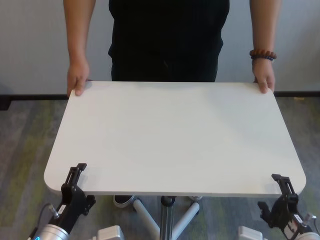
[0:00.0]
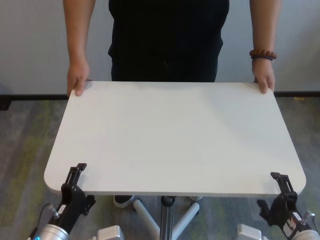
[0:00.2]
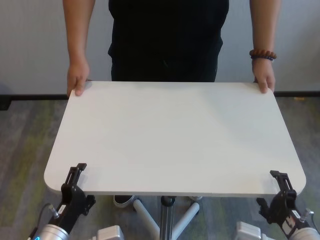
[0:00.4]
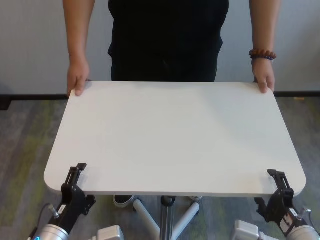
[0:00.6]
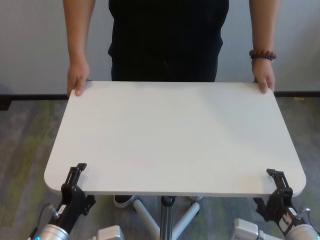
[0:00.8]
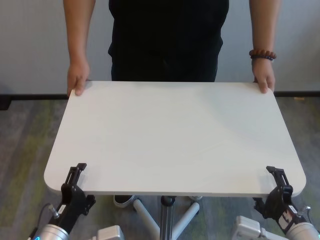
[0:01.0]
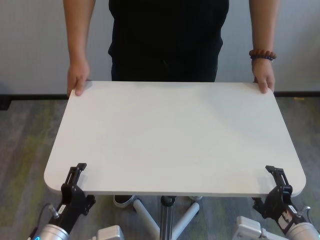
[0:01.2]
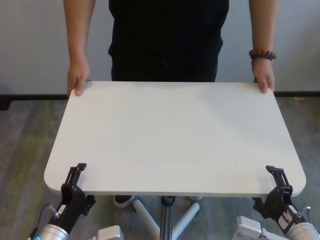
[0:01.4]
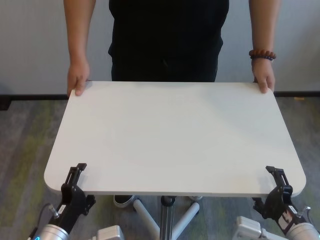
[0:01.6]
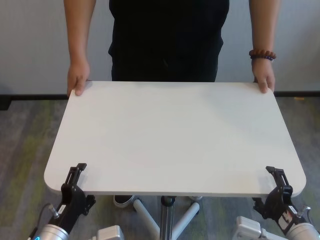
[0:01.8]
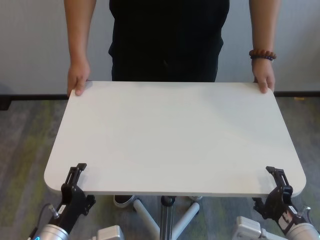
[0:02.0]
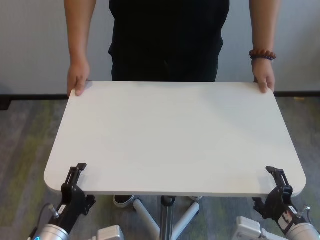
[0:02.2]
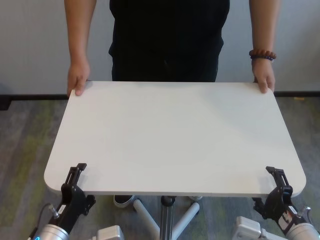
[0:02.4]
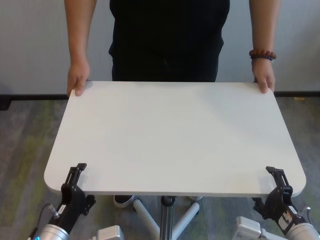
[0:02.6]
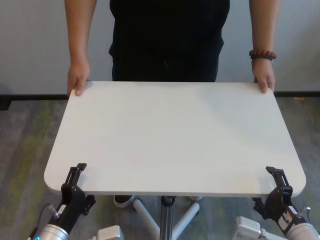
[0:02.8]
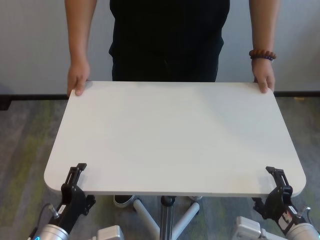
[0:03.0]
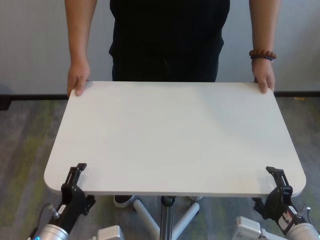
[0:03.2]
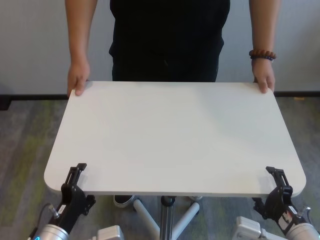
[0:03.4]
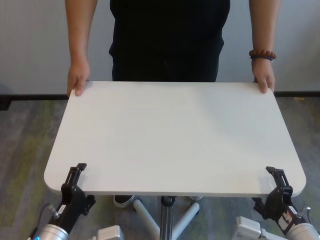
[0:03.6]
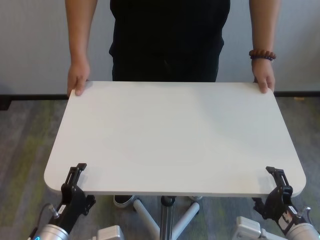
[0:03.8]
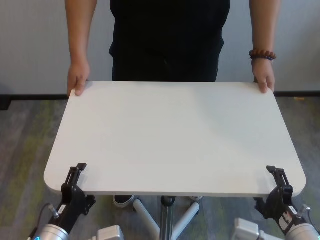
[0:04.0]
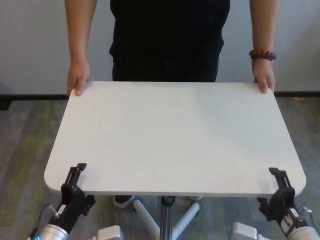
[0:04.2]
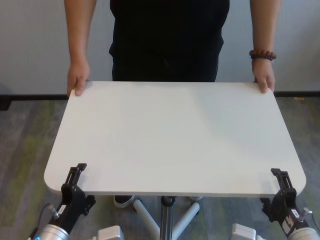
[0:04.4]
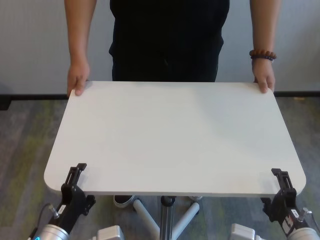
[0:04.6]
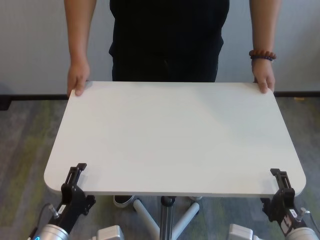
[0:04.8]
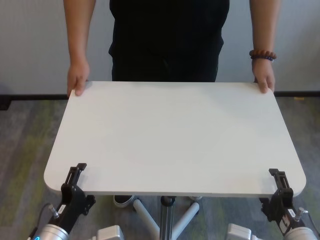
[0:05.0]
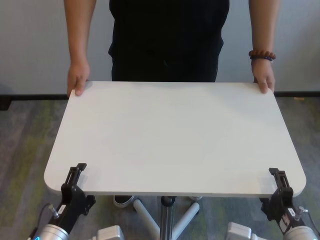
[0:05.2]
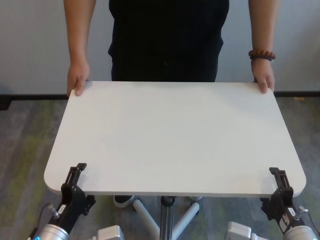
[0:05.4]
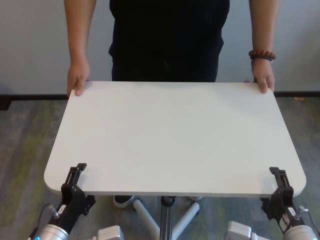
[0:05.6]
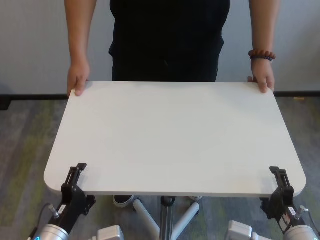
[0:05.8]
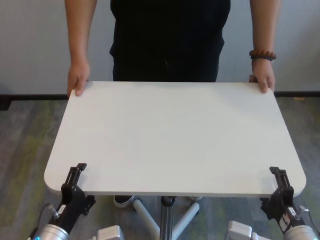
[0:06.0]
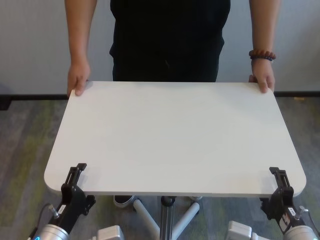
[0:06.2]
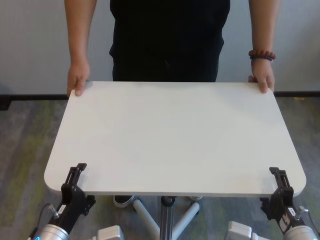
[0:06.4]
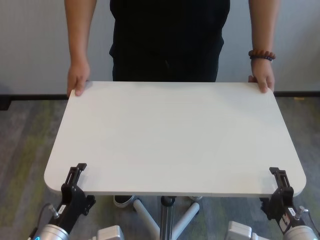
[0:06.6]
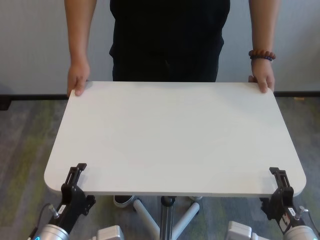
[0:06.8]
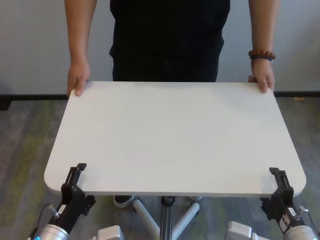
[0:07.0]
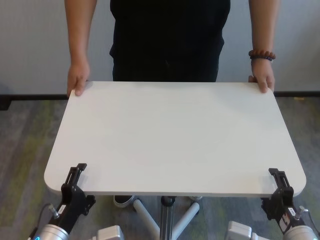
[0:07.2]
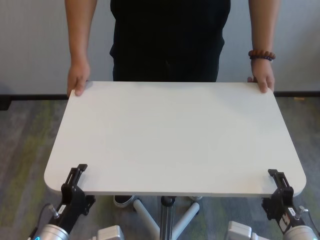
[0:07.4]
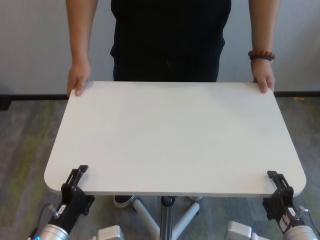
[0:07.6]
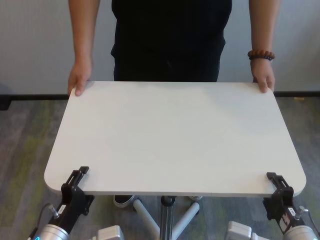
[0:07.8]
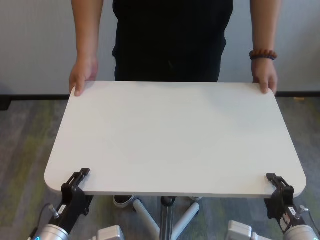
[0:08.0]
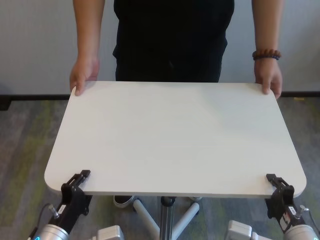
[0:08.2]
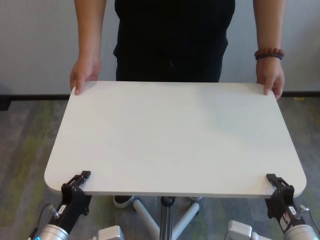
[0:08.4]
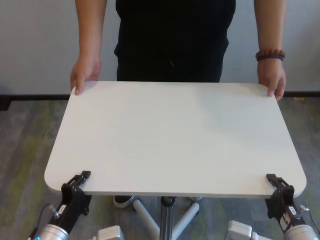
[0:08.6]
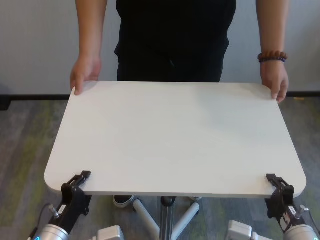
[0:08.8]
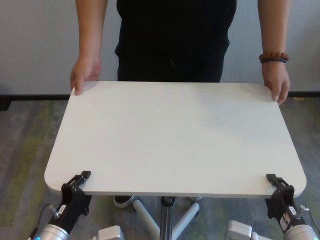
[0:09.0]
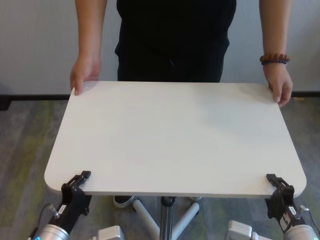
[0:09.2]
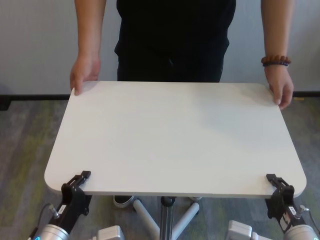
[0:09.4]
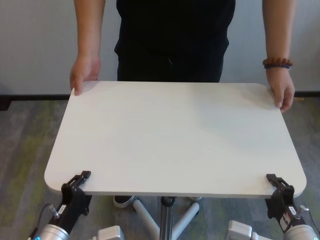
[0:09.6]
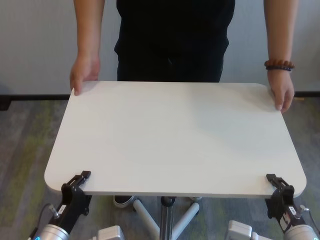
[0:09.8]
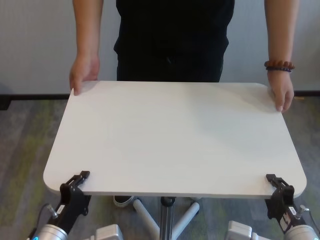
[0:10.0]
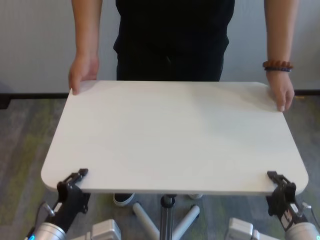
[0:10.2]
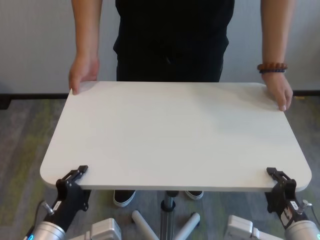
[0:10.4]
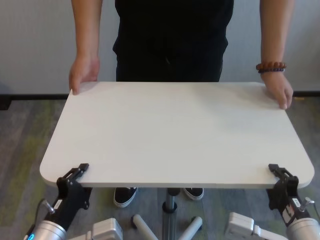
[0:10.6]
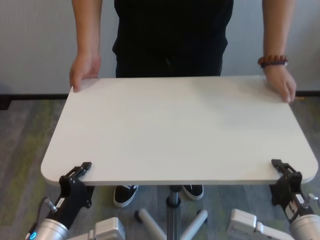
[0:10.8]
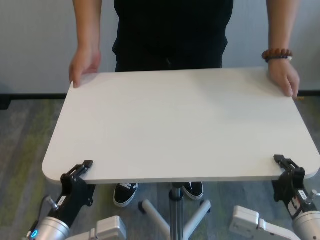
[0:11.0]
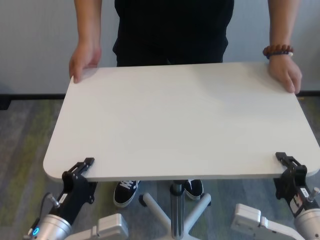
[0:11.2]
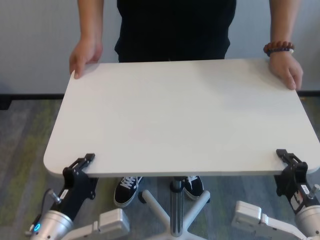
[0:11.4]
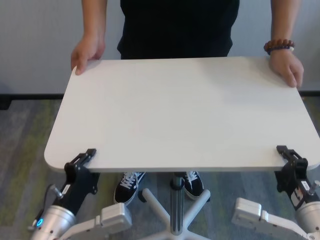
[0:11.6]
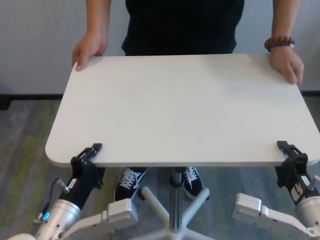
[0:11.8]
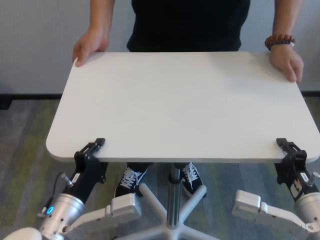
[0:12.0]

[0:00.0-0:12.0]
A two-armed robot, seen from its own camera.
Task of the whole recording: human machine collaborative table moving.
Step, 0:00.0 to 0:09.2: Grasp the table with both grippers.

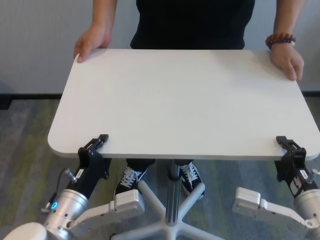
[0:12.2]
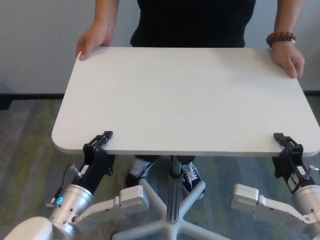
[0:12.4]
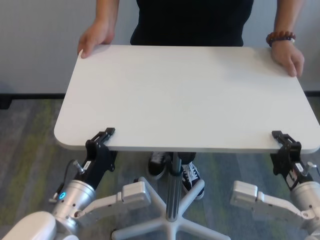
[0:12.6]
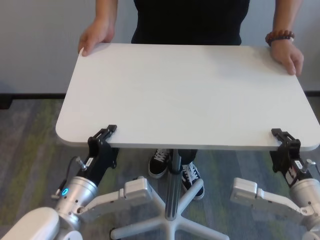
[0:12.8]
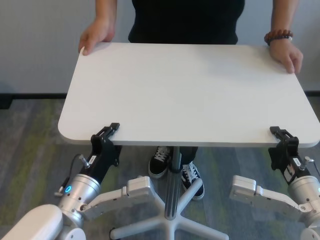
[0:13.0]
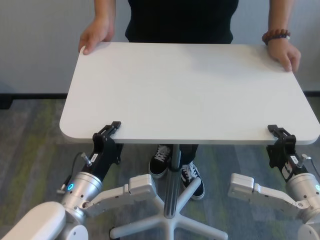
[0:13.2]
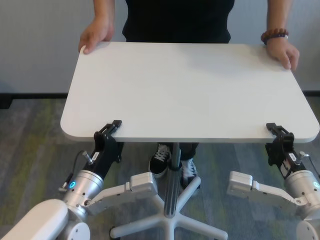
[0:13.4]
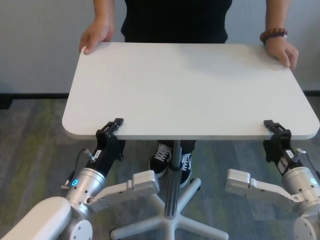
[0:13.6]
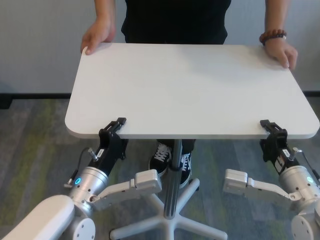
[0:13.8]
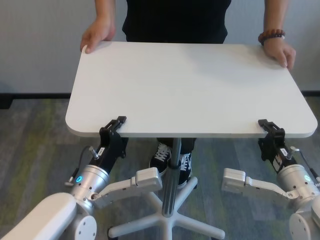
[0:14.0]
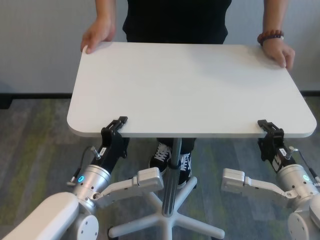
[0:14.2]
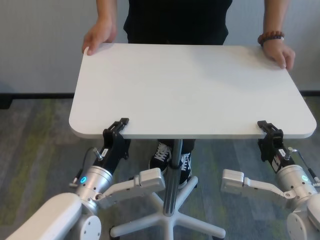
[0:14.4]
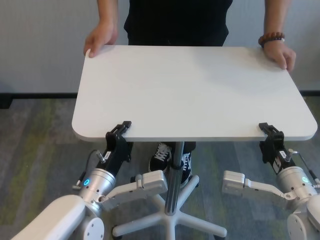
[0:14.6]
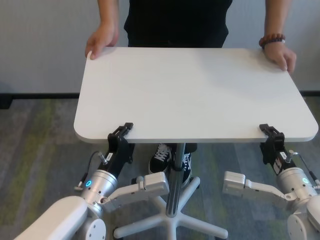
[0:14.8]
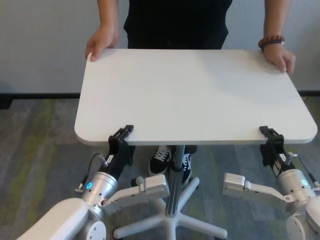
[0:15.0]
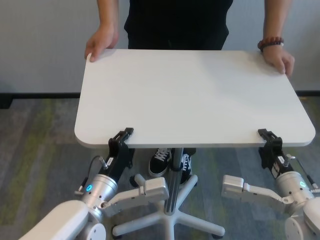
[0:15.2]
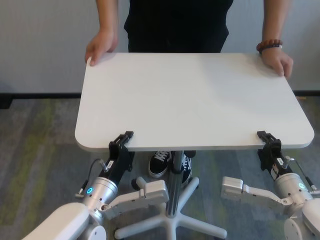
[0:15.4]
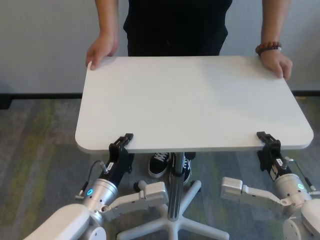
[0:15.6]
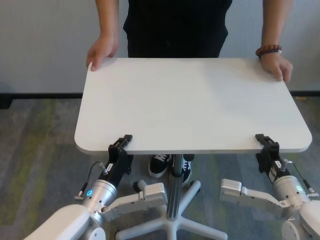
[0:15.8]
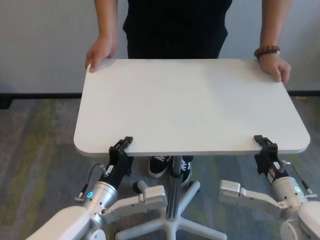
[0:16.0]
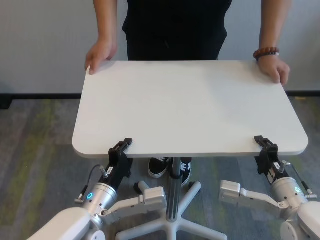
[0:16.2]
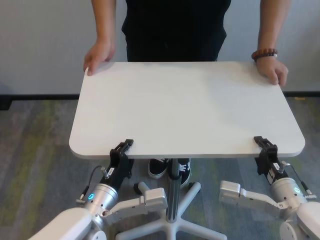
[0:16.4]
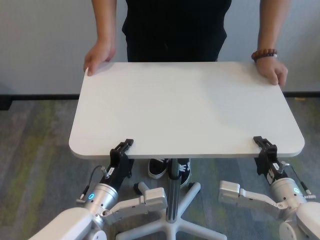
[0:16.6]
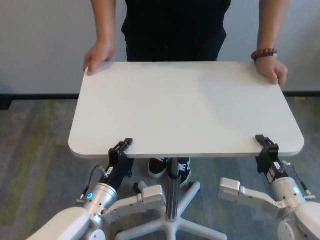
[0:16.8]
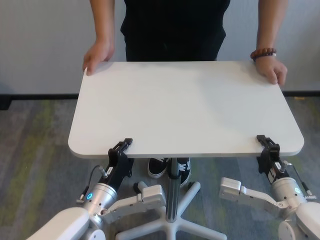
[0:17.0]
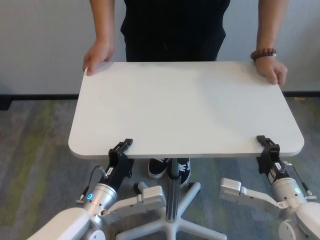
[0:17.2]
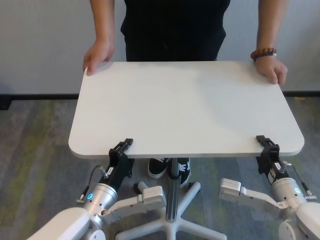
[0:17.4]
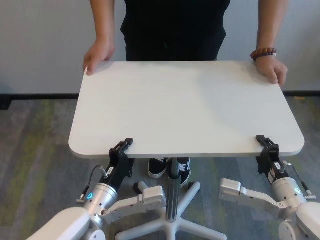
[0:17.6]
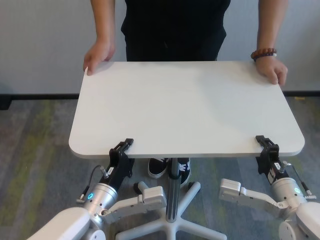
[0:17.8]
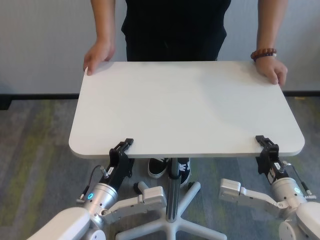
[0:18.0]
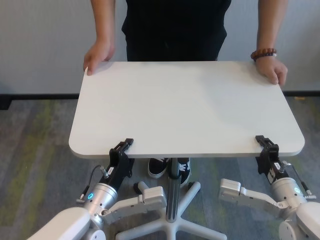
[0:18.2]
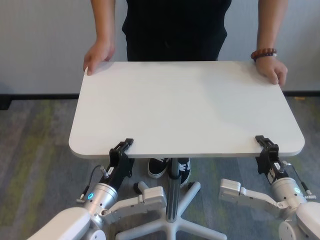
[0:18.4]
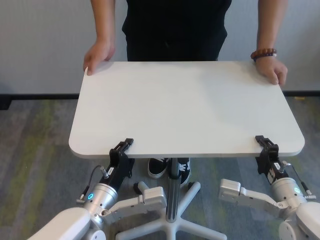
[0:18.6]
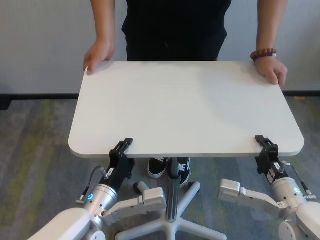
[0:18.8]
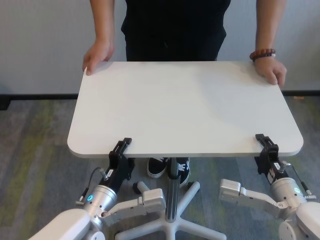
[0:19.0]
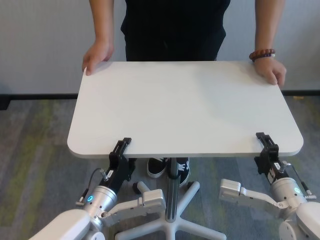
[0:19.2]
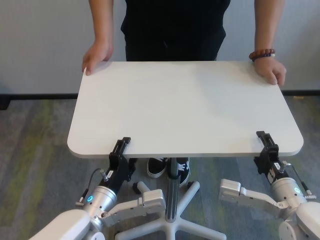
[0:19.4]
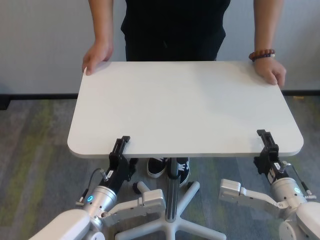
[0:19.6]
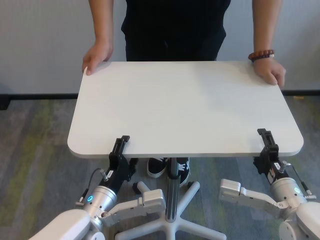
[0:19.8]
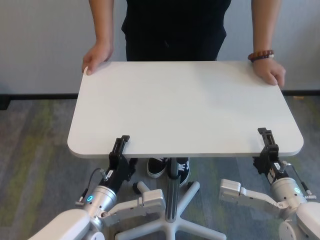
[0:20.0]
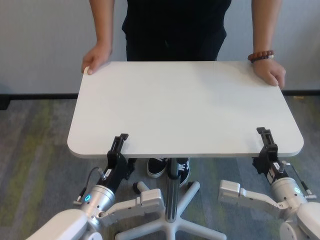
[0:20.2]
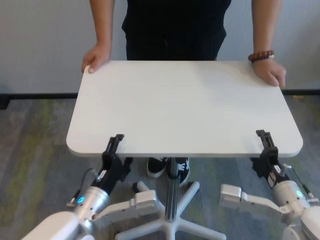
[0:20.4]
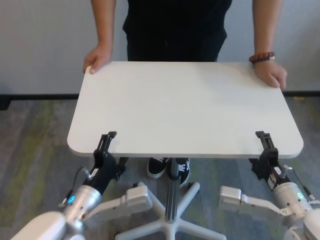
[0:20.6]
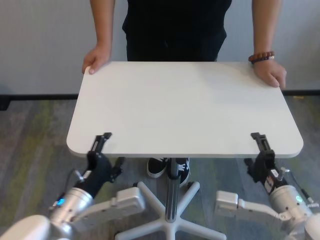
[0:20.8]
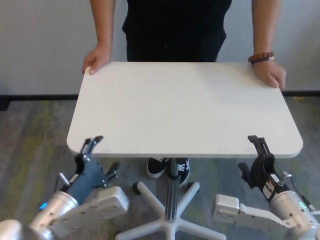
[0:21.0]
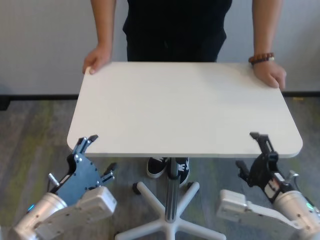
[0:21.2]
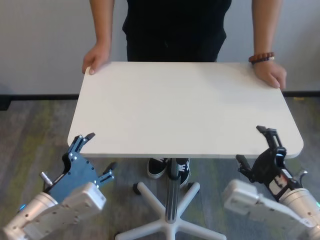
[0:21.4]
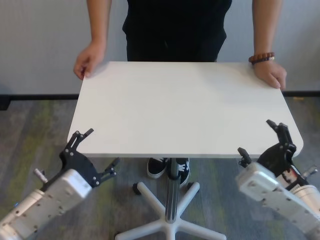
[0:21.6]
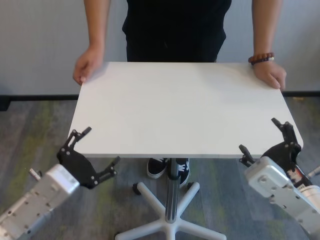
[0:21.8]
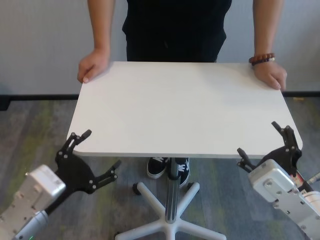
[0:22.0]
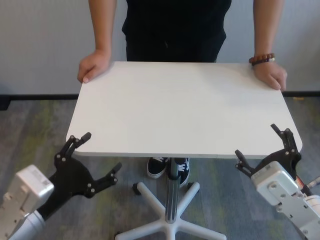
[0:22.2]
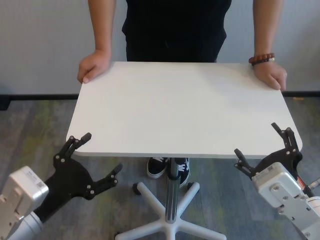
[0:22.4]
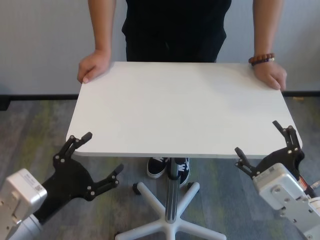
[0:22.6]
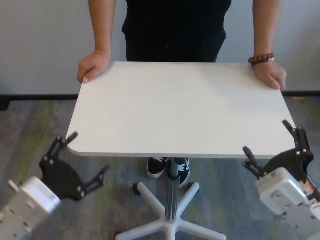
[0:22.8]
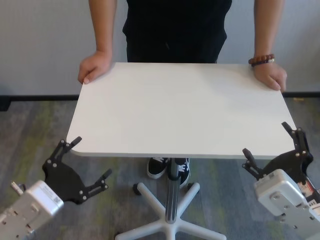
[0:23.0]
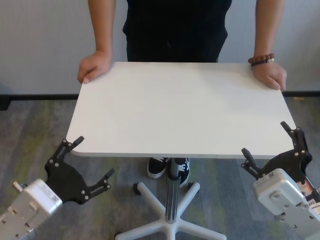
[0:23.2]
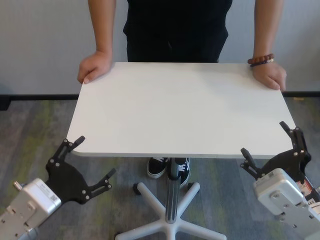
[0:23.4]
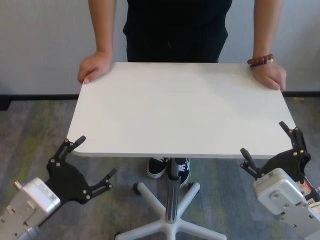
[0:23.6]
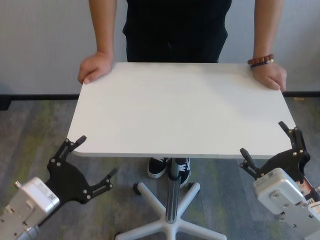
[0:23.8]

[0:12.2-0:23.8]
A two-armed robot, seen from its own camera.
Task of the whole recording: human machine collaborative table moving.
Step, 0:12.2 to 0:20.4: Move the table forward with both grippers.
